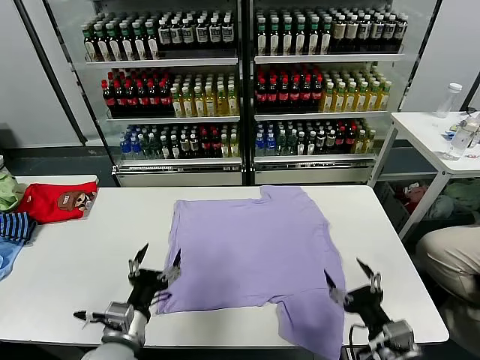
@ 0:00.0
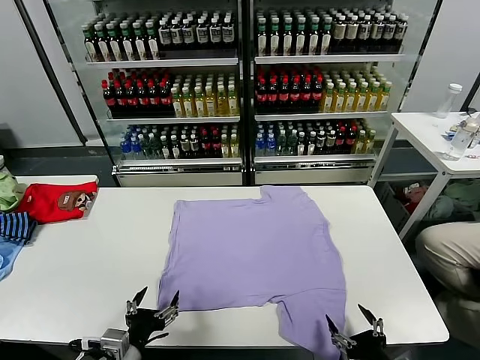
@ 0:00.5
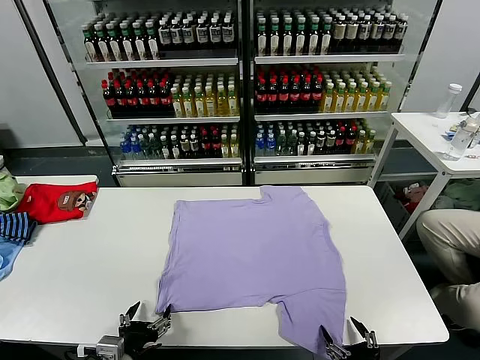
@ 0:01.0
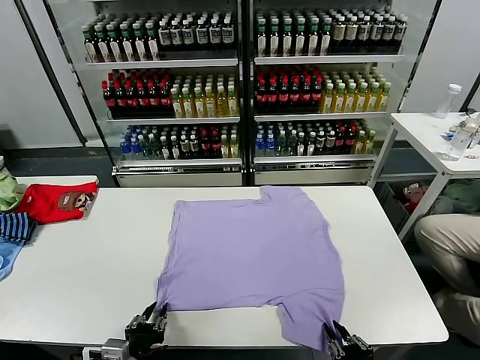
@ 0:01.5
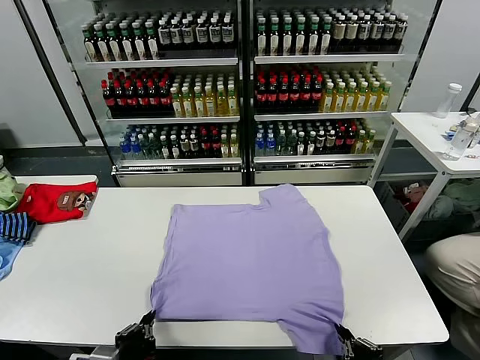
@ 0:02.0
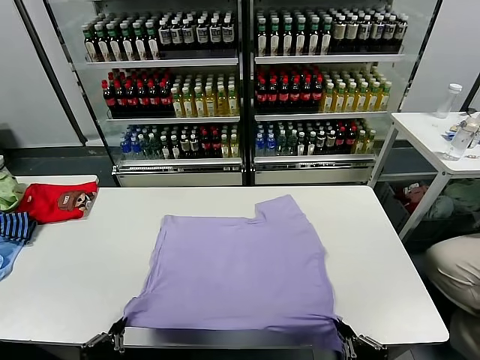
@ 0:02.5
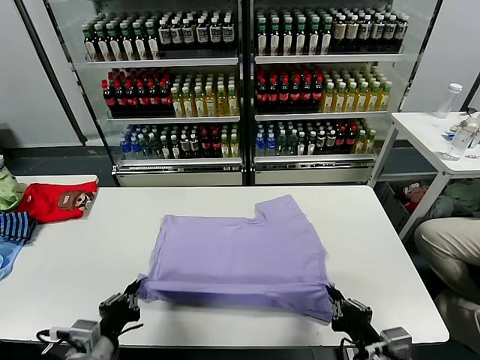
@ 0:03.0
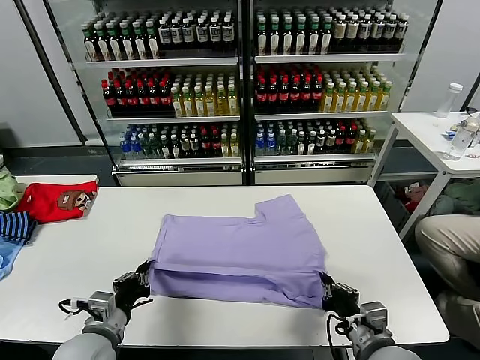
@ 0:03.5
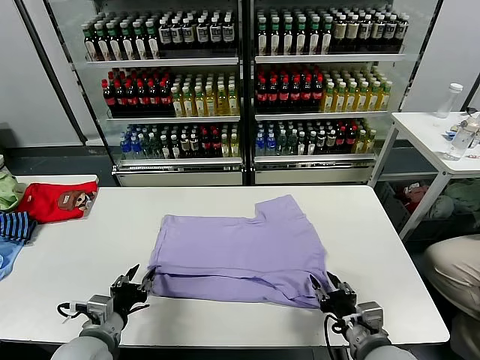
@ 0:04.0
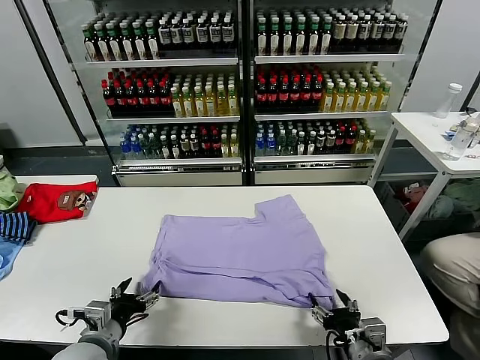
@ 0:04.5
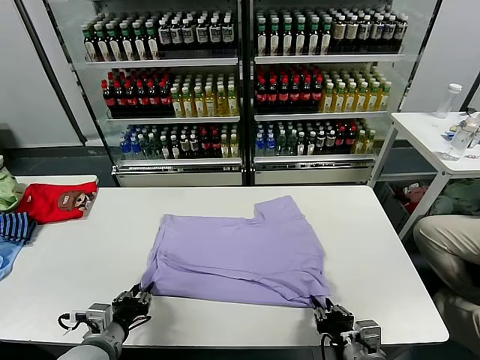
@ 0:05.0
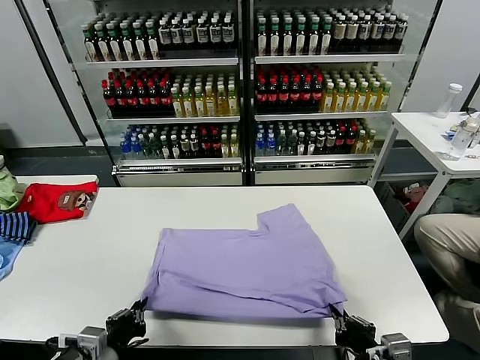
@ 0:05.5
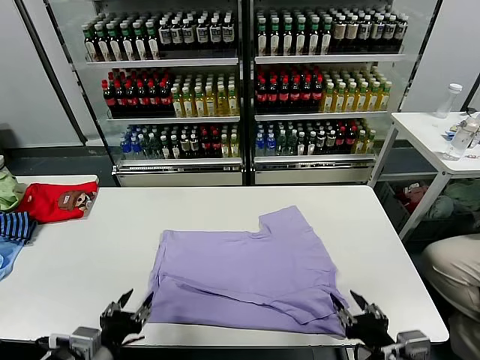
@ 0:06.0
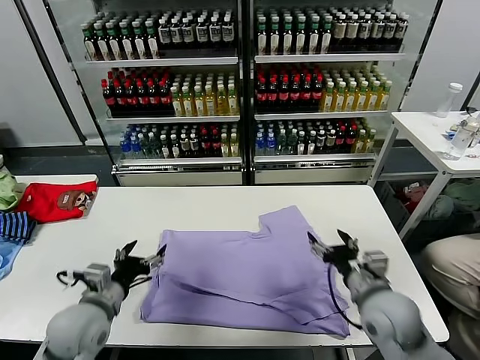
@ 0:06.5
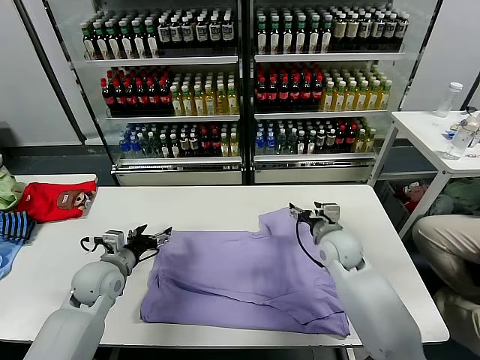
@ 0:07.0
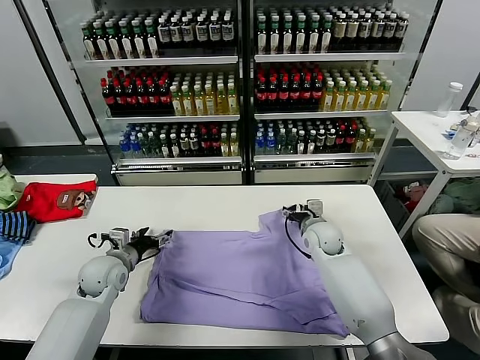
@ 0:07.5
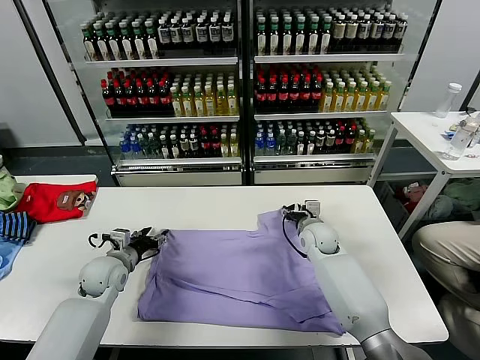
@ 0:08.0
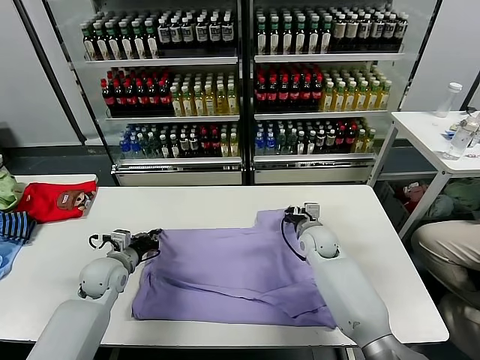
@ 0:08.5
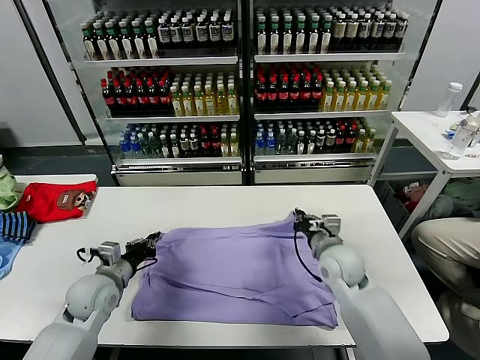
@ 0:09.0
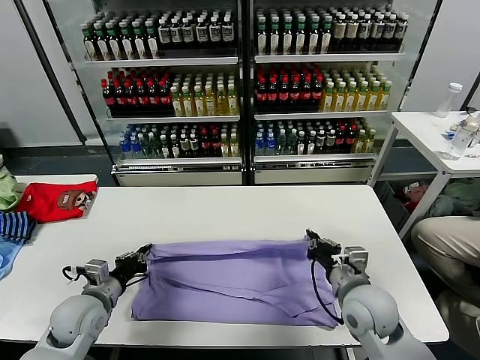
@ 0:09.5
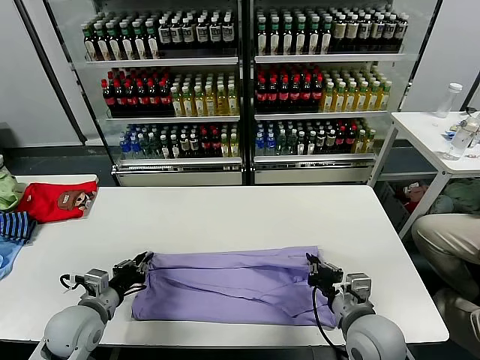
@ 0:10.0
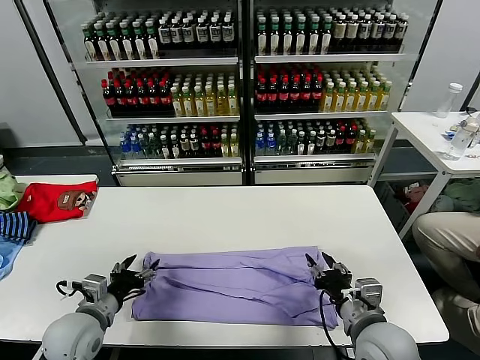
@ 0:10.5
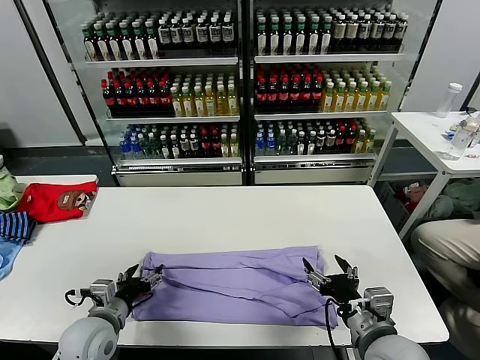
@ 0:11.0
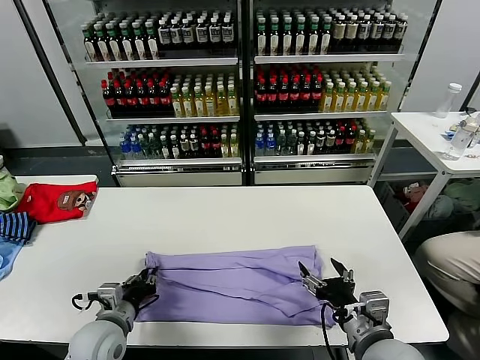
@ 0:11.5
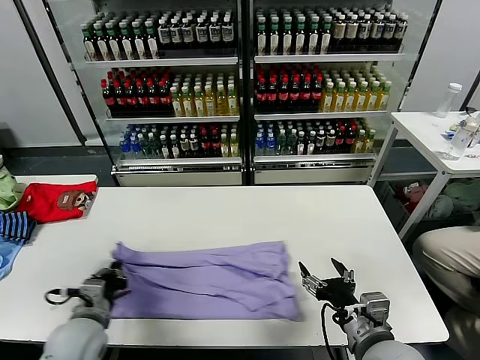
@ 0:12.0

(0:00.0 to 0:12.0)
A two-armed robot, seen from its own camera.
Task of the whole recording: fold and organize the clothes.
Step, 0:00.0 - 0:01.5: use both grippers simultaneously to clamp the lower edge of the clothing fabric.
Step, 0:02.0 - 0:04.0: use both grippers to drag the lower edge of the fabric forward and fold it over the upper edge.
Step, 0:04.5 - 0:06.0: Drag the clothes downward with both gripper.
Step, 0:06.5 - 0:08.5: use both grippers simultaneously to clamp the upper edge of the clothing fabric.
Step, 0:09.0 - 0:10.5: use both grippers to drag the upper edge of the fabric backward and fold it over the lower edge.
Step, 0:11.0 - 0:11.5: use the left gripper to clamp the left edge of the fabric.
0:02.0 - 0:04.0: Both grippers move forward, roughly 10 cm. The right gripper opens. The left gripper opens.
0:04.0 - 0:06.0: The right gripper moves upward, approximately 5 cm, and closes, then opens again. Meanwhile the left gripper moves backward, approximately 10 cm, and closes, then reopens.
0:06.0 - 0:08.0: The two grippers go about 30 cm forward.
0:08.0 - 0:10.0: The right gripper shifts roughly 25 cm backward, and closes. The left gripper goes roughly 15 cm backward.
0:10.0 - 0:12.0: The right gripper travels backward by some 5 cm, and opens. The left gripper opens and closes again.

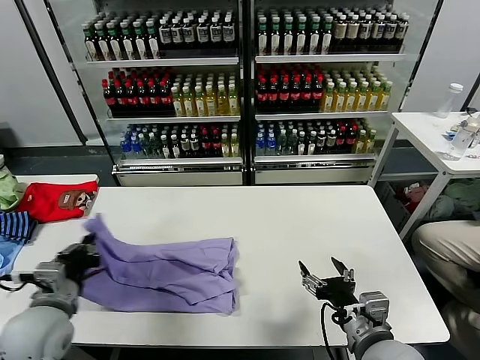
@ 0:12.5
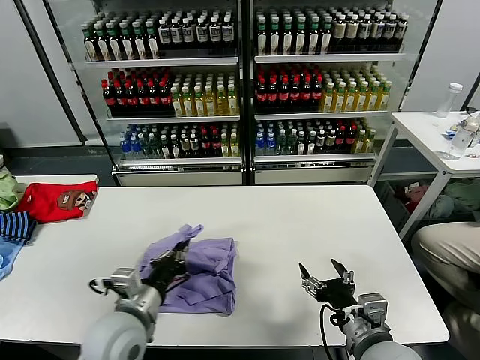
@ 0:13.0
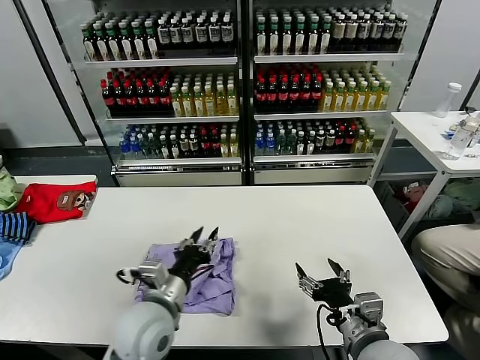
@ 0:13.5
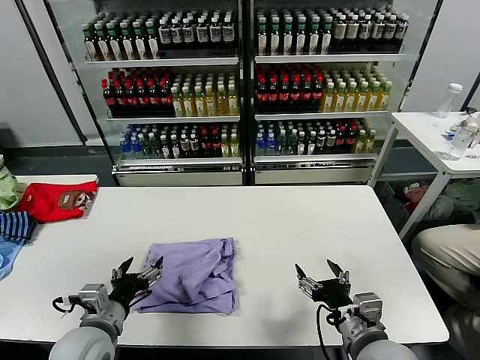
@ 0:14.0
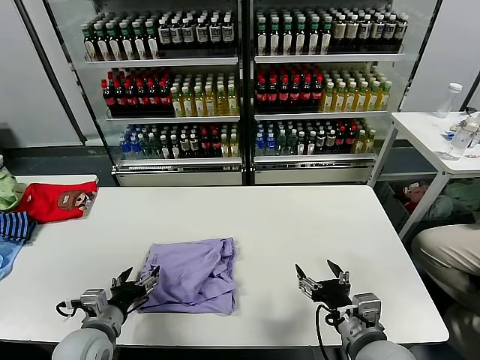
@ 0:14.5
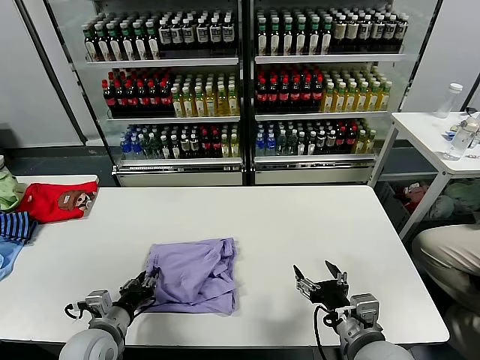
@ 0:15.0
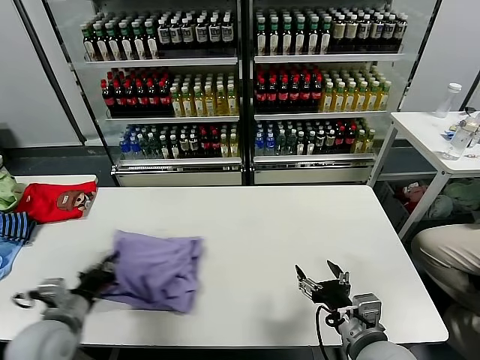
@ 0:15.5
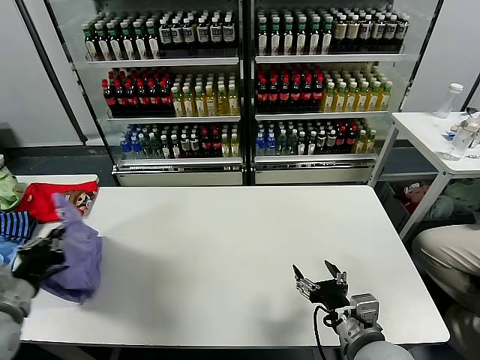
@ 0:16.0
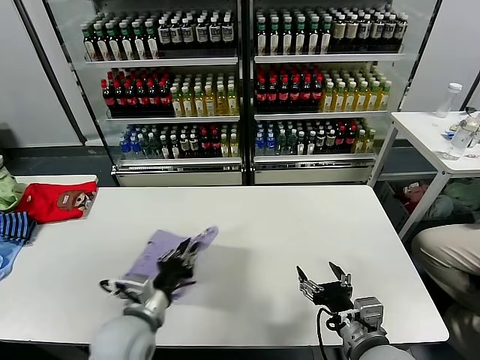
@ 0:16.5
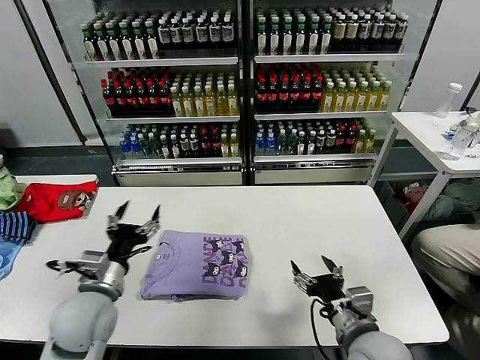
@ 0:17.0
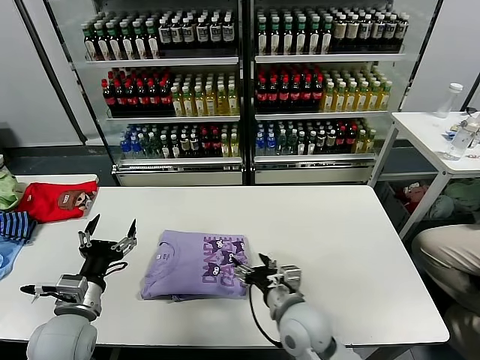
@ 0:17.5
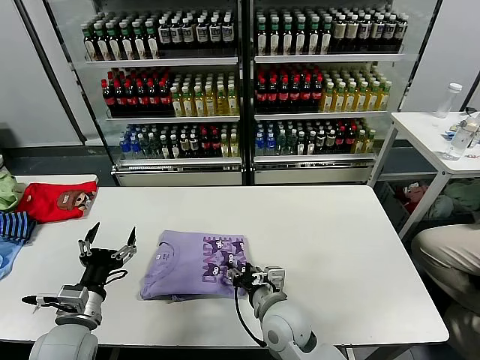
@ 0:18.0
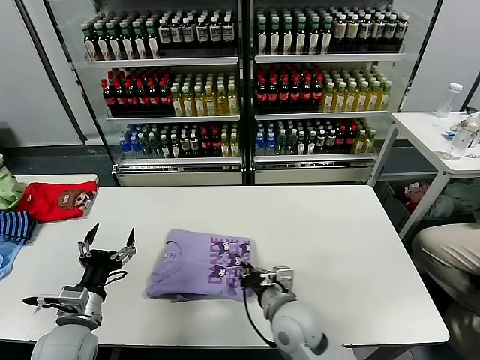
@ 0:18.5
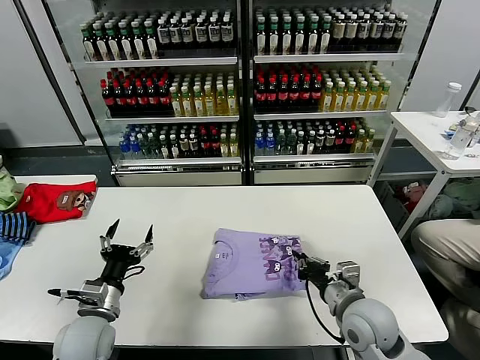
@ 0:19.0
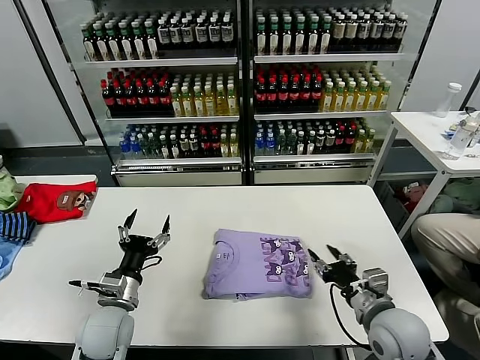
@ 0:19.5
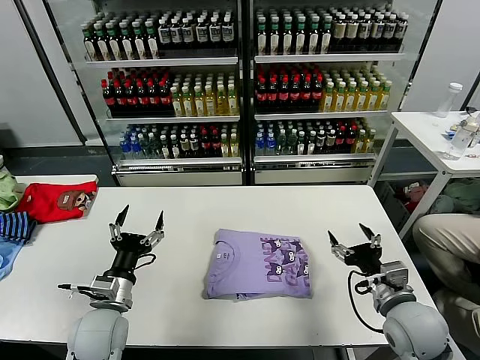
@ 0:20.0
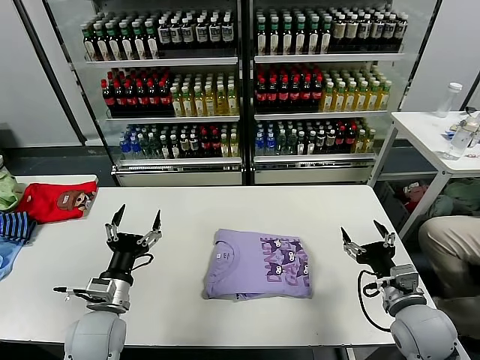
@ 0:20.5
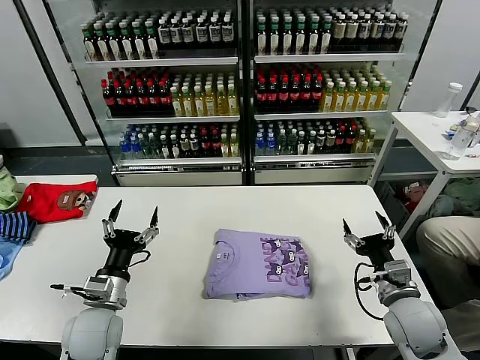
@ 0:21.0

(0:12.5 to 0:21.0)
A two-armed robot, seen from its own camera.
Task of the whole recording: fold and organize the clothes.
Step, 0:12.5 - 0:13.5: use the left gripper to drag the left edge of the fabric to the left and folds it over the right edge.
Step, 0:14.0 - 0:16.5: Flip the folded clothes over with left gripper.
Step, 0:17.0 - 0:19.5: Drag the clothes to the center of the table.
0:12.5 - 0:14.5: The left gripper goes about 10 cm downward, goes to the right and returns, some 20 cm each way, and opens up.
0:14.5 - 0:16.5: The left gripper travels to the right and upward by about 10 cm, and closes up.
0:16.5 - 0:19.0: The right gripper travels forward by some 10 cm, moves roughly 15 cm to the left and comes back, and closes. Meanwhile the left gripper heads to the left, covering roughly 10 cm, and opens.
0:19.0 - 0:21.0: The right gripper moves to the right, approximately 10 cm, and opens up.
